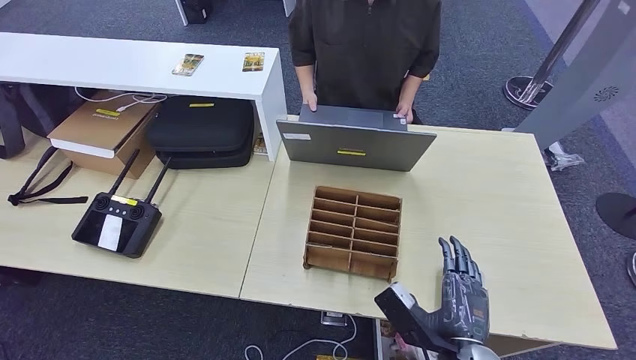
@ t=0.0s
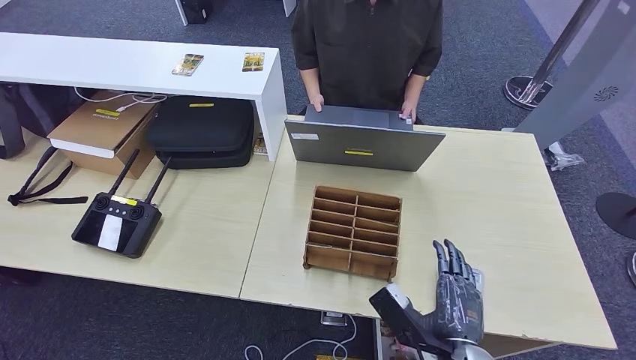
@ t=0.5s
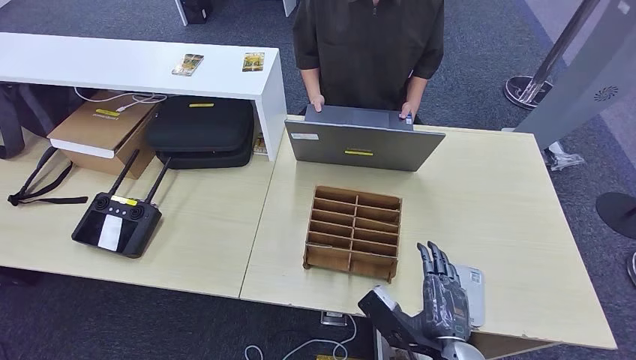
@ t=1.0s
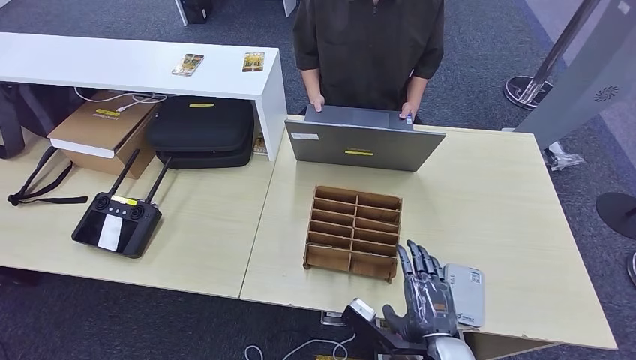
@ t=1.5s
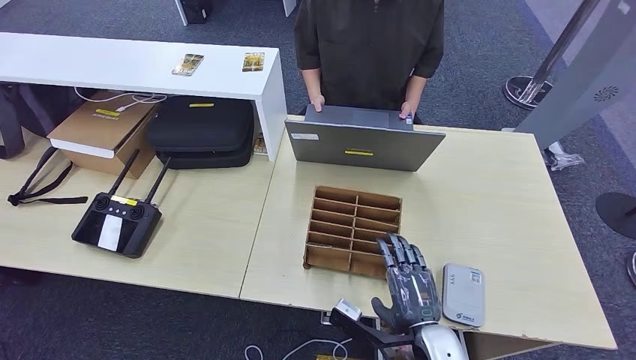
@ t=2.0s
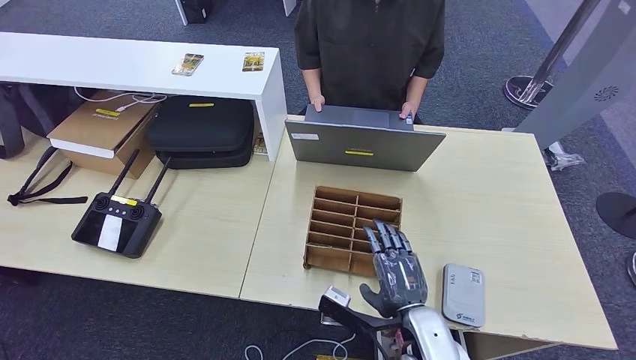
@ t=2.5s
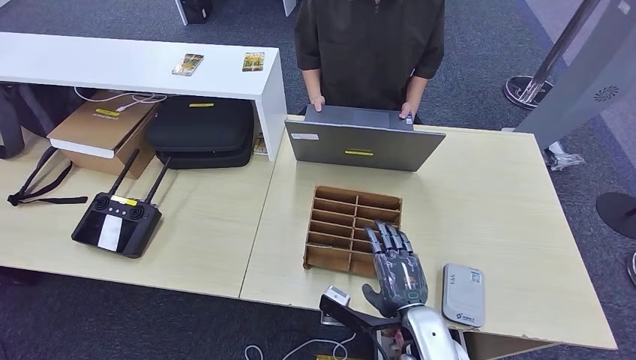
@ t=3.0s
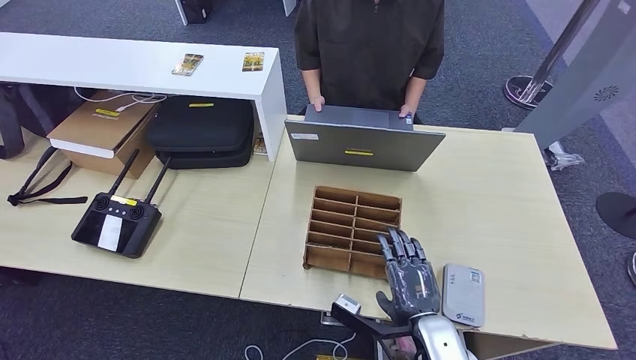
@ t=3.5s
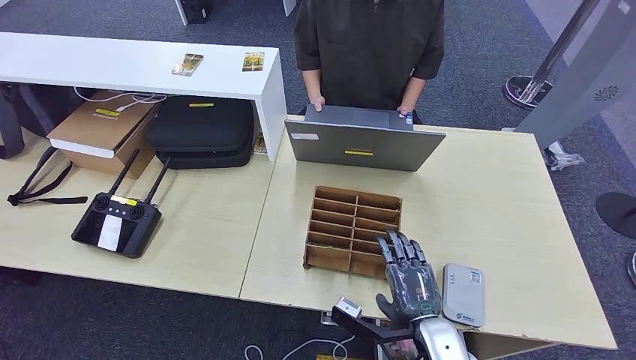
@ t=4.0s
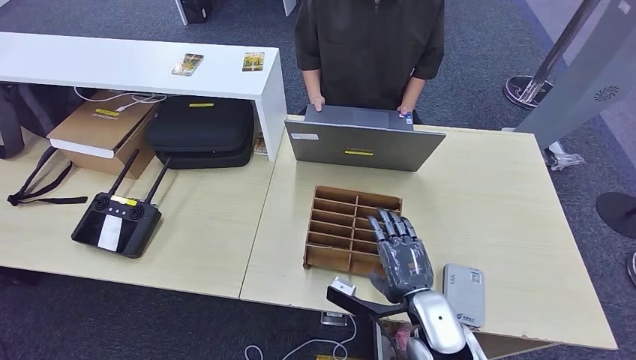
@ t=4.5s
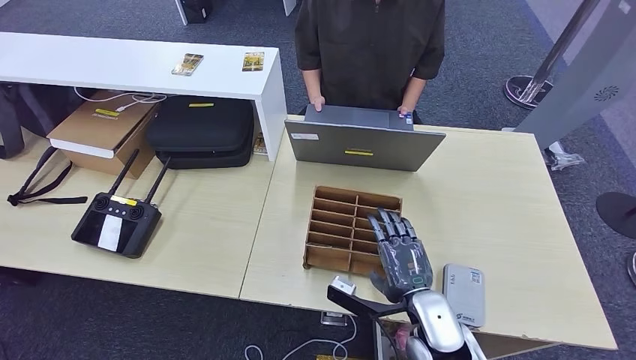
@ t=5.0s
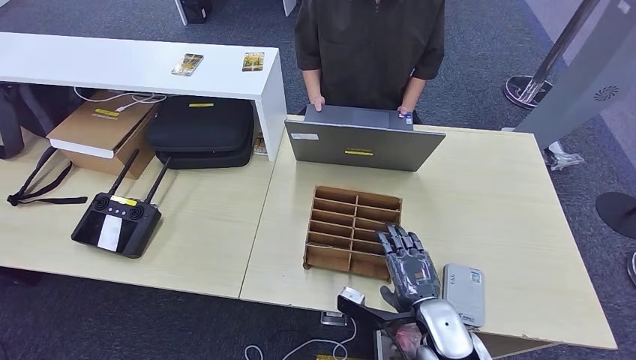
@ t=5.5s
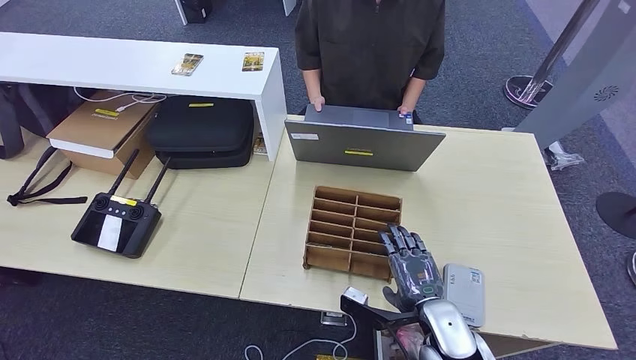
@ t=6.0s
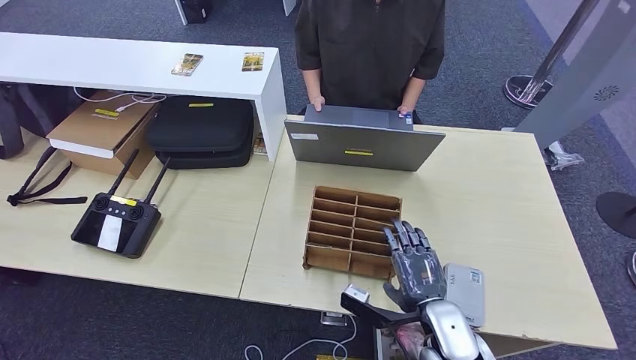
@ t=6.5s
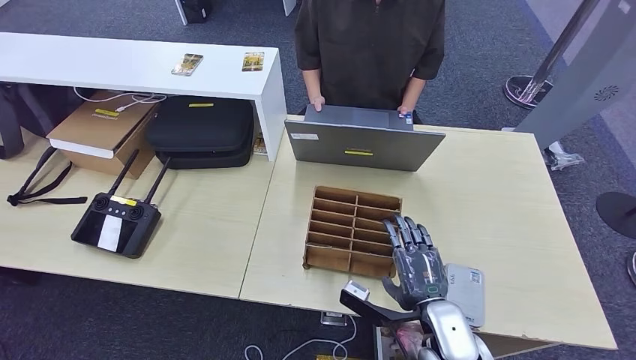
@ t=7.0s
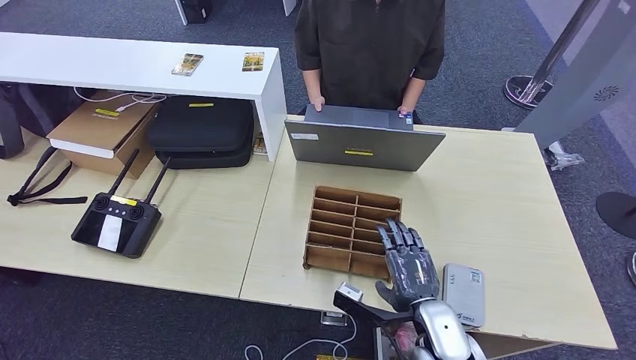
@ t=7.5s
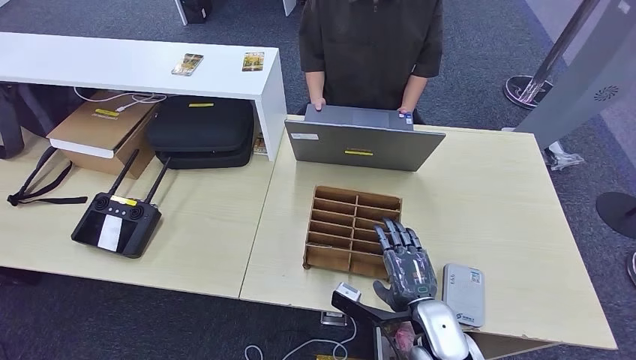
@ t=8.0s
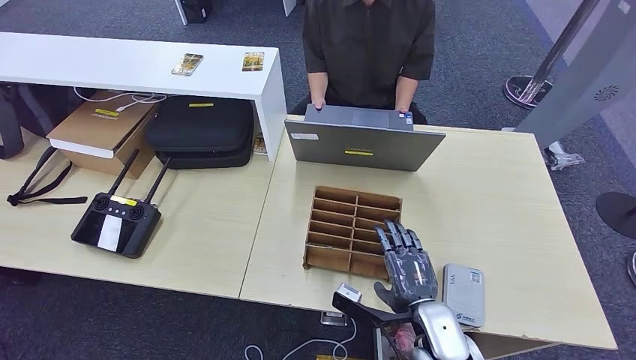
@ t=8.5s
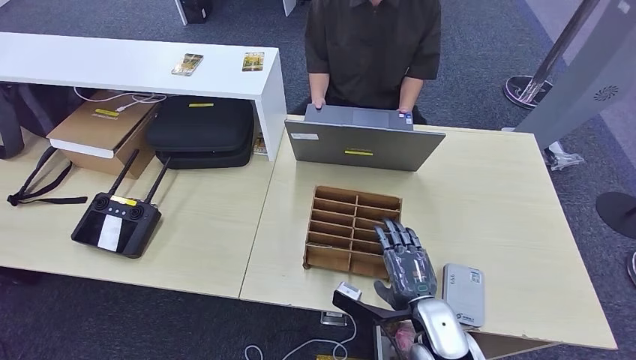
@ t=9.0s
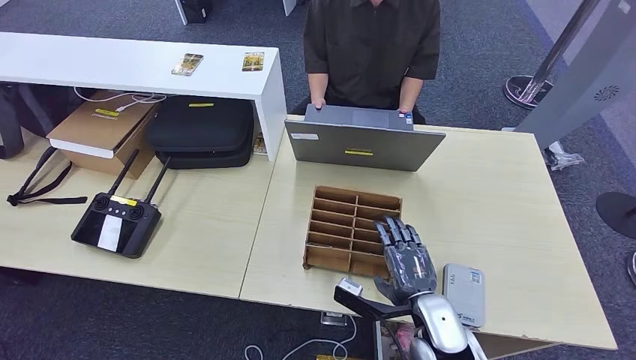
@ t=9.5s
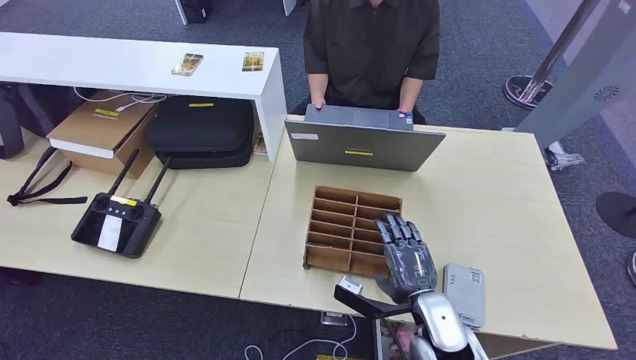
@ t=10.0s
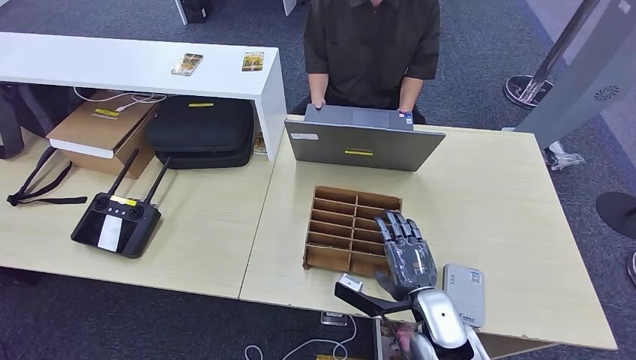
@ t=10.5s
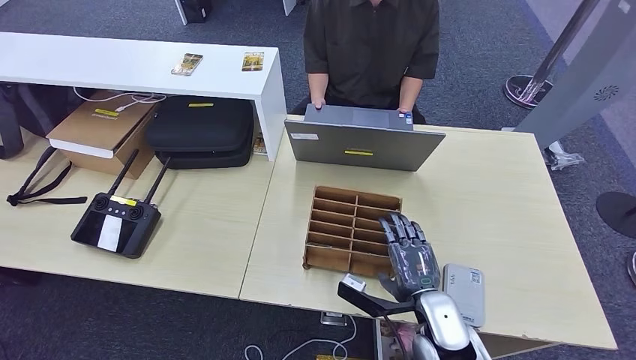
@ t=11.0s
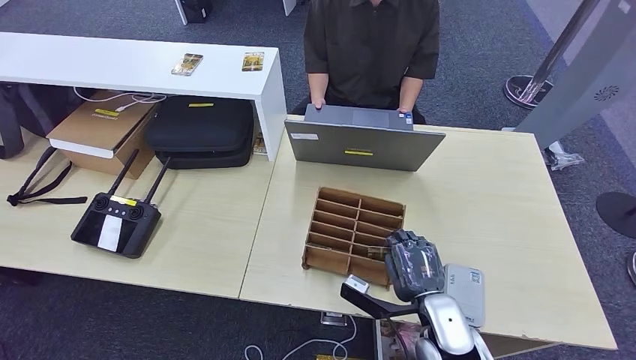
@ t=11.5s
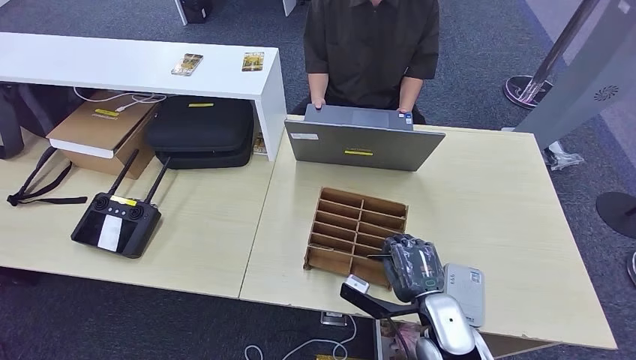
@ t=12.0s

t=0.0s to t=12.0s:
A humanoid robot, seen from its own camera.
t=2.0s to t=10.0s: The hands stay close to where they were, moving slightly.
t=10.0s to t=12.0s: The hands stay close to where they were, moving slightly.

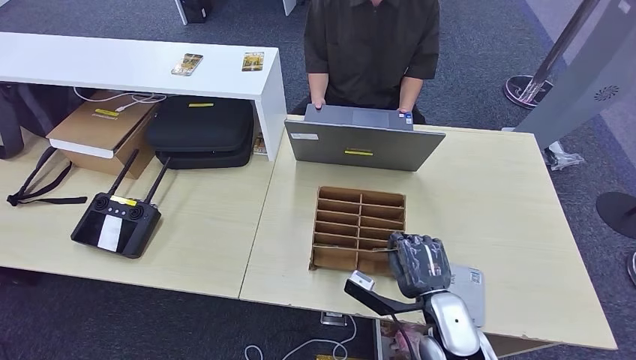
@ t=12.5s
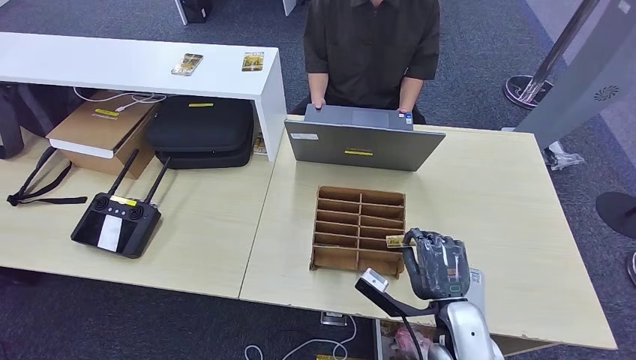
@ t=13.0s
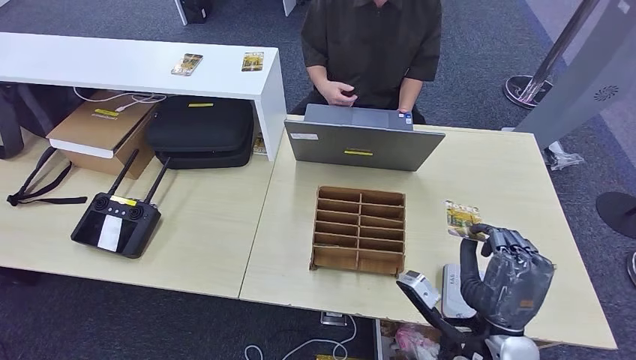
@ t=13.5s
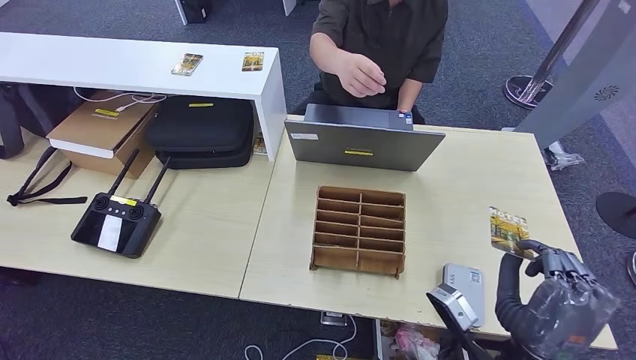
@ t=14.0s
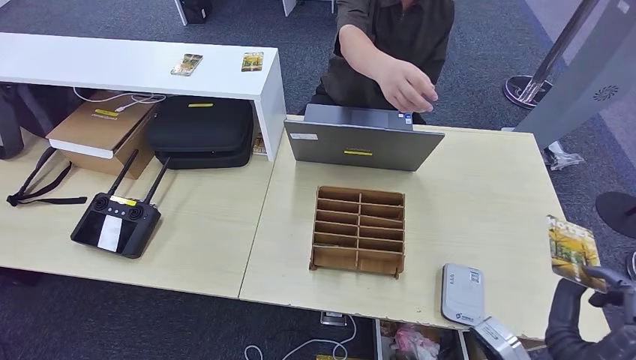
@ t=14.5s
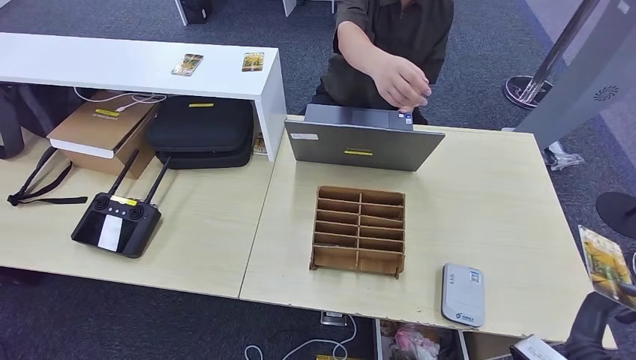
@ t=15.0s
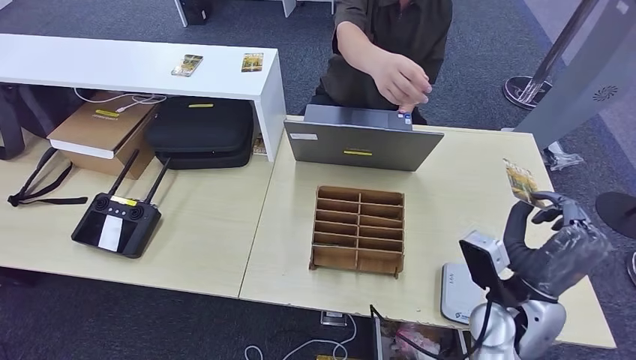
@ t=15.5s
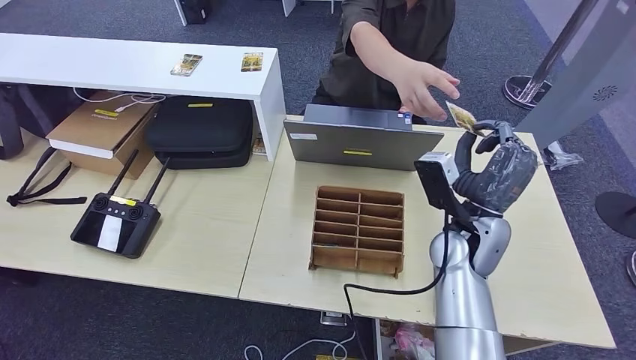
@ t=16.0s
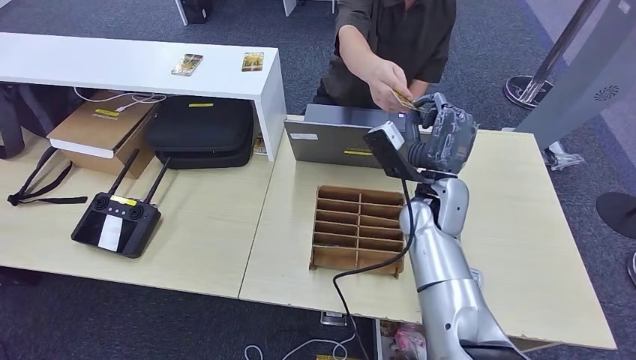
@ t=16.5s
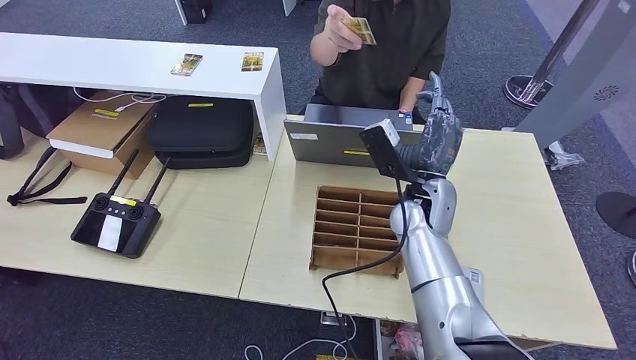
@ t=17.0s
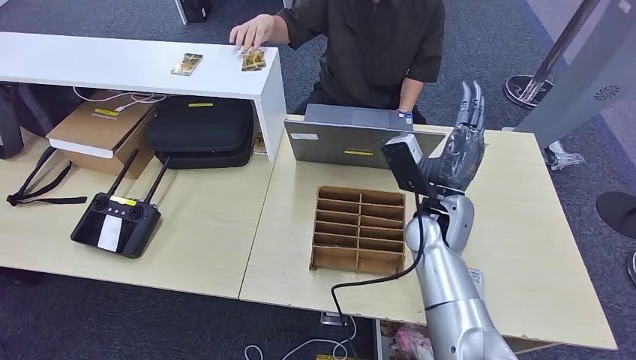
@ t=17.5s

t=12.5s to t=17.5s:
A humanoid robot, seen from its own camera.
Step, t=13.5s to t=17.5s: Hand the room key to the person.
t=12.5s to t=15.0s: The right hand shifts approximately 15 cm backward, upward and to the right.
t=15.0s to t=17.5s: The right hand is displaced forward and to the left by roughly 25 cm.
